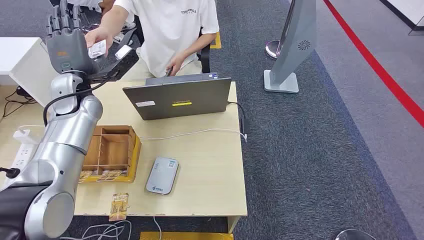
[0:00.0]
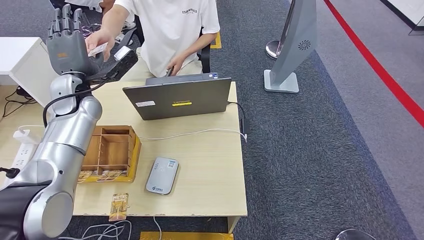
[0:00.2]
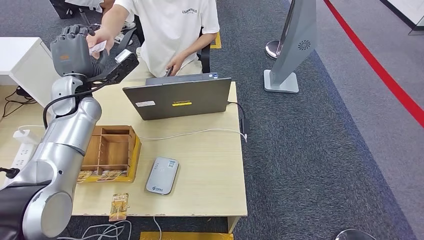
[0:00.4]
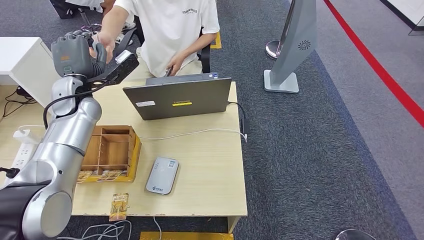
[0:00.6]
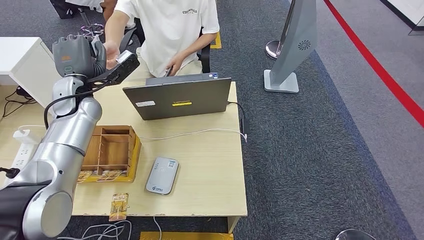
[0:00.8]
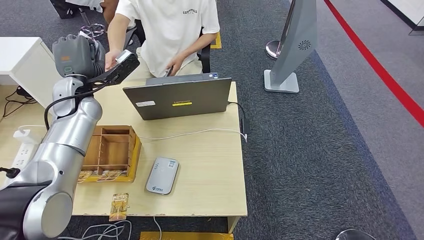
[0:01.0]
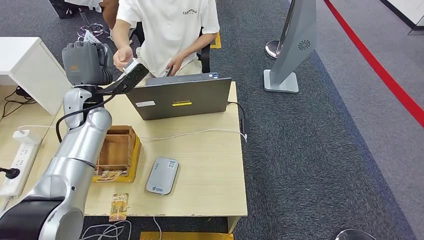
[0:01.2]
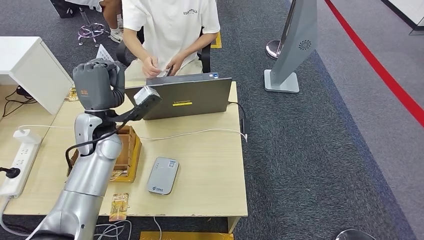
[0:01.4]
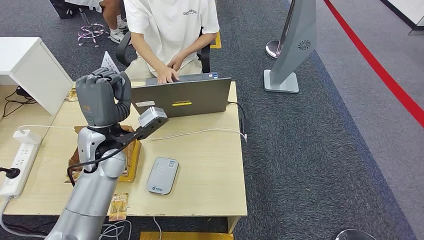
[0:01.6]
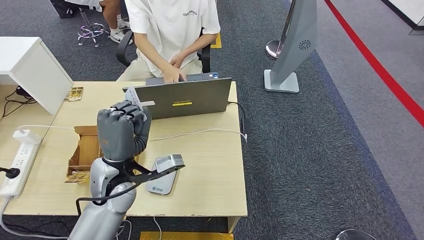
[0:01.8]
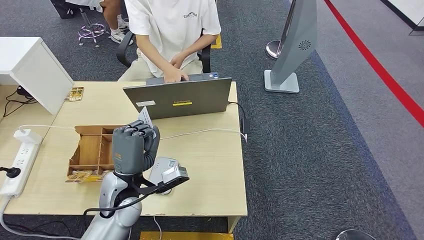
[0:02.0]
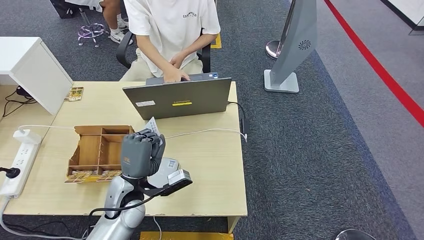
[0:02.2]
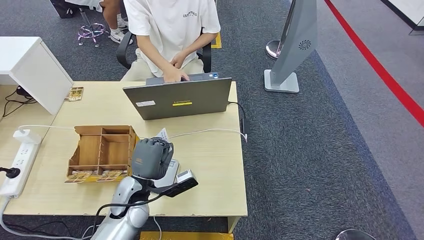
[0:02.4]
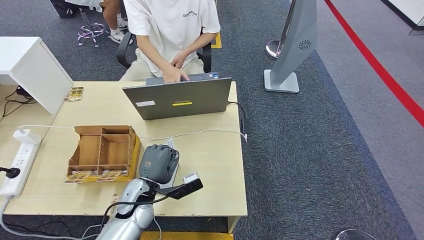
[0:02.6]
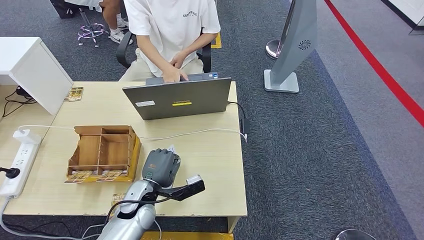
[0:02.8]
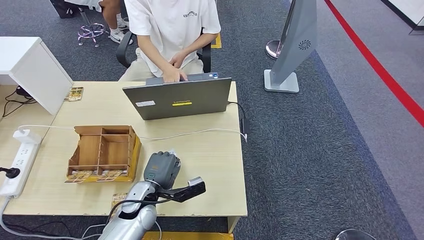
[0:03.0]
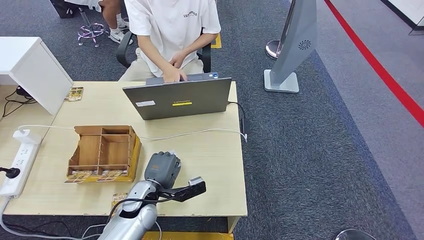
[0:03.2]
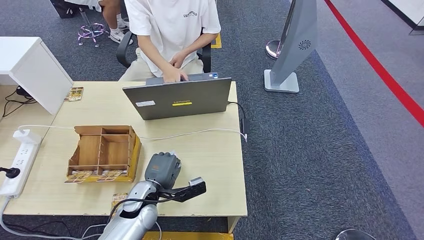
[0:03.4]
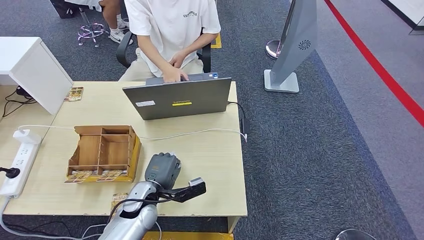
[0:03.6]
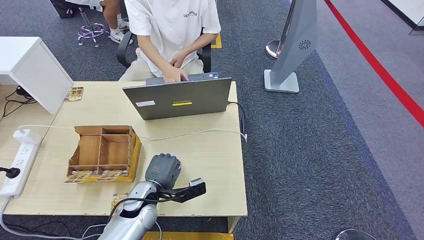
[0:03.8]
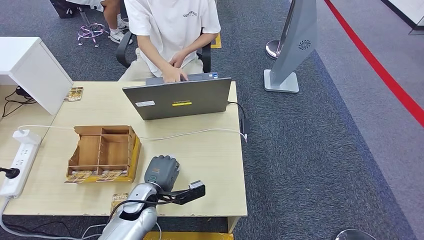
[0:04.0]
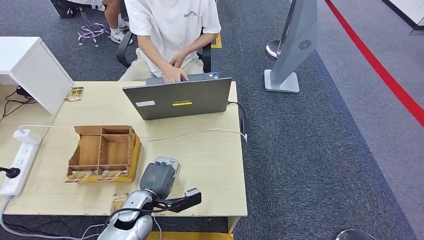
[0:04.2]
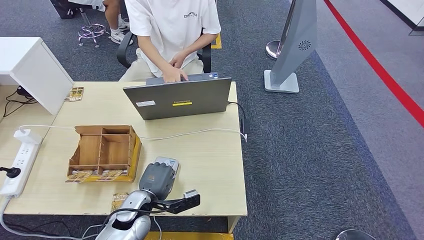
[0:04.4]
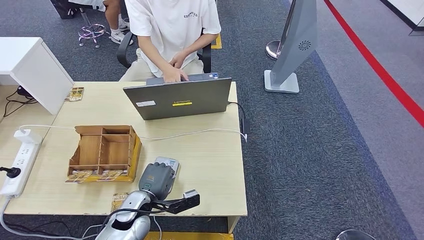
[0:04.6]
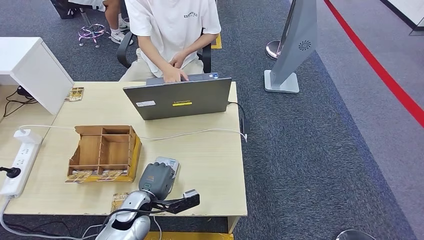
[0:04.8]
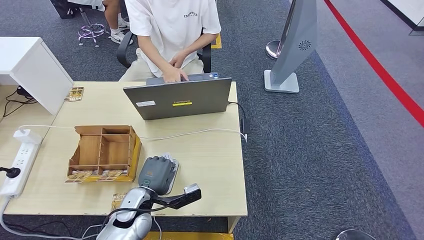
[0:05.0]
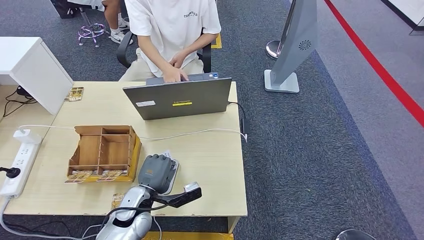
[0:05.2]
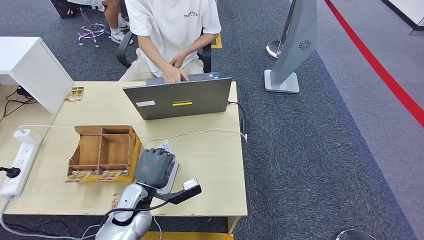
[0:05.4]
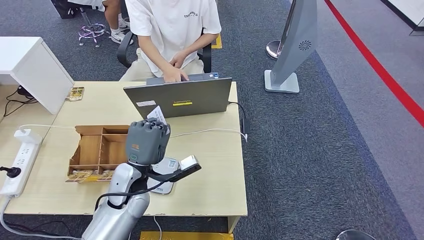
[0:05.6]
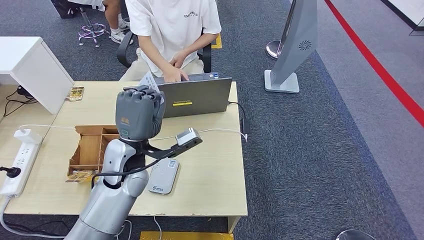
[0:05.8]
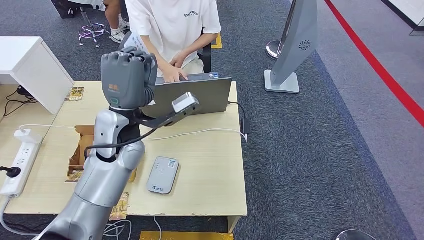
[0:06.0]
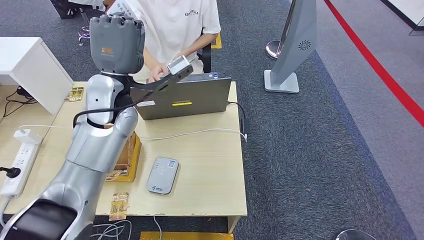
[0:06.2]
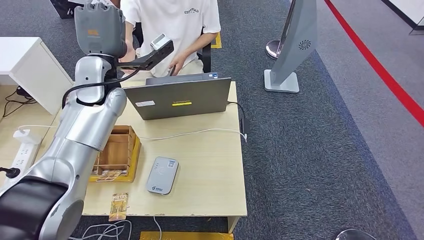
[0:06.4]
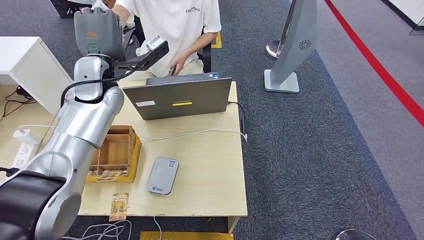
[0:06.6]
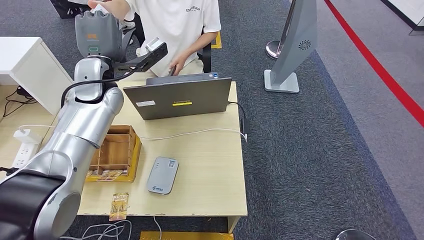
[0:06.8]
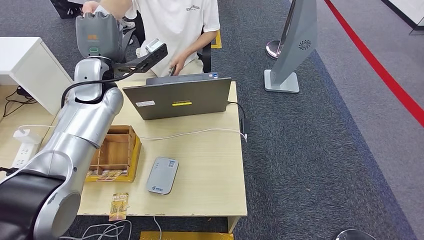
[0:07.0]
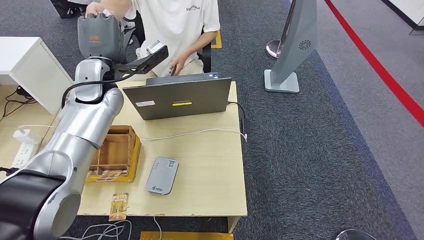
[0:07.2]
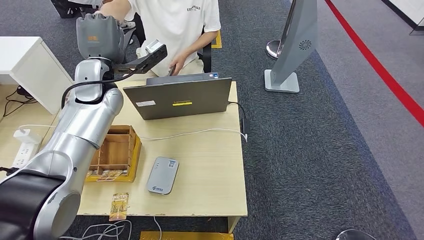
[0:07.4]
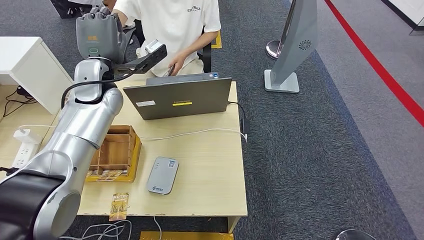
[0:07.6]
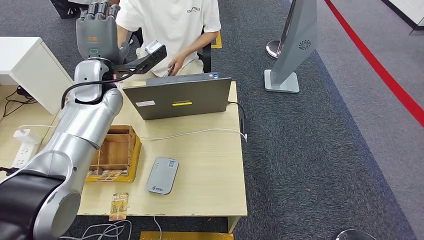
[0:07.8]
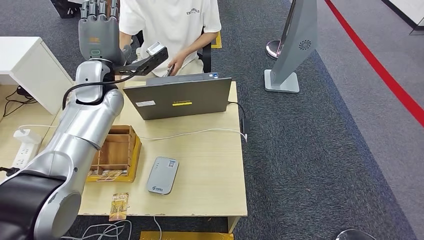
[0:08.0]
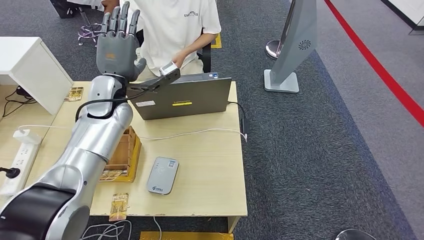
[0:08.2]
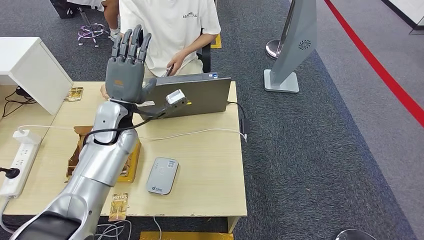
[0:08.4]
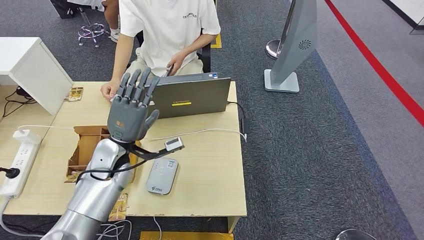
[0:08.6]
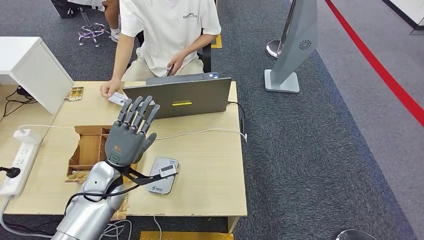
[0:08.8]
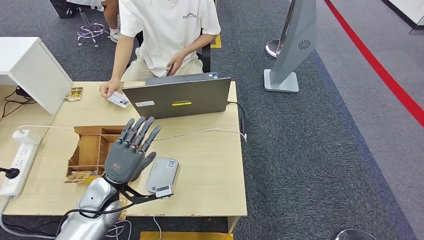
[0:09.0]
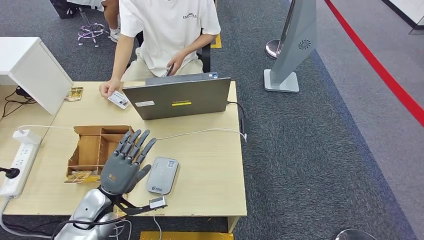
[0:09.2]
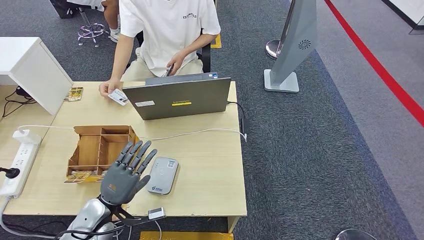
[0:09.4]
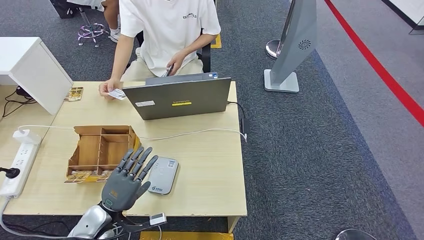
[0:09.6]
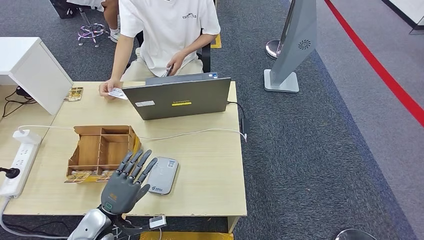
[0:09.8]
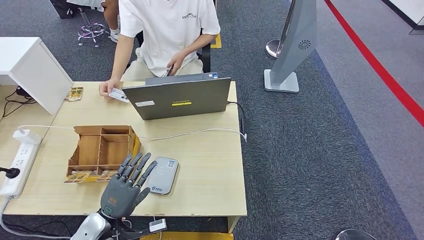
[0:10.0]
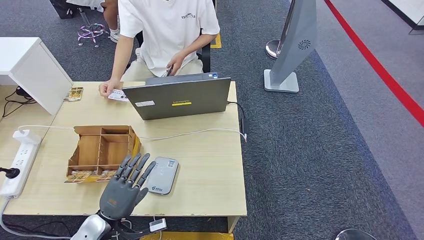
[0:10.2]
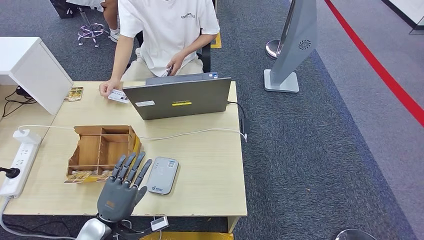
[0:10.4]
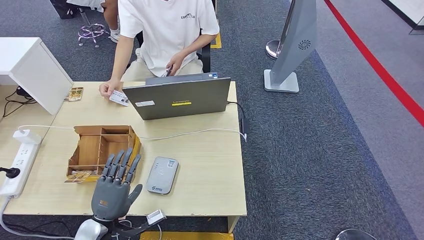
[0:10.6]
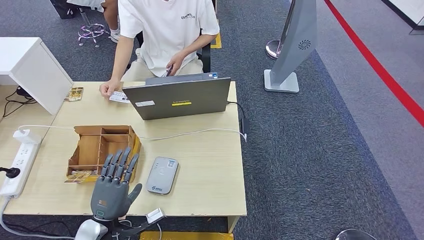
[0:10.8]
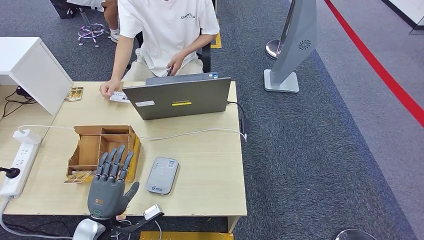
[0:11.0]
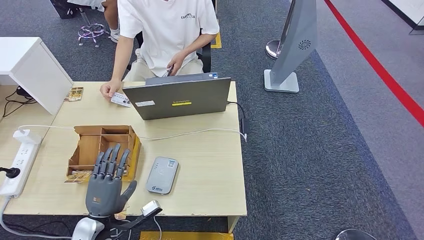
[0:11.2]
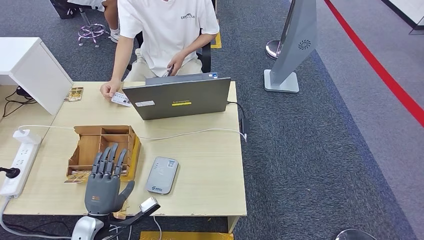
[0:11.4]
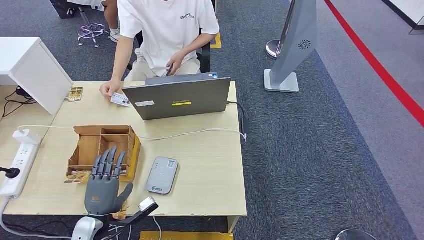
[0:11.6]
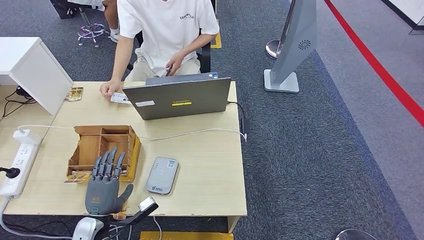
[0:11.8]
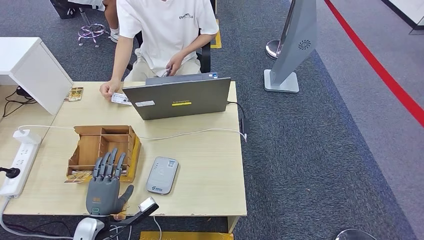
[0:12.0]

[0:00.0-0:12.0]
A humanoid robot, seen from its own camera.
Step, 0:00.0 to 0:02.2: Take the ID card from the person's hand.
Step, 0:02.4 to 0:07.2: Place the ID card on the card reader.
Step, 0:07.4 to 0:11.2: Hand the ID card to the person.
0:01.6 to 0:03.0: The left hand shifts about 20 cm downward and backward.
0:03.0 to 0:04.4: There are only small adjustments of the hands.
0:04.4 to 0:06.0: The left hand shifts approximately 25 cm upward and forward.
0:06.0 to 0:07.6: The left hand shifts about 15 cm forward and to the left.
0:07.6 to 0:09.0: The left hand shifts about 30 cm downward and backward.
0:09.0 to 0:10.4: The left hand travels backward and downward by approximately 10 cm.

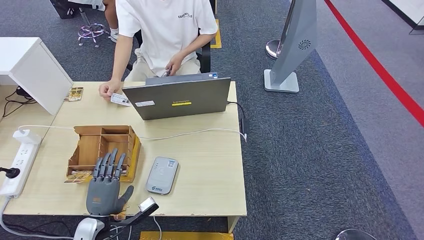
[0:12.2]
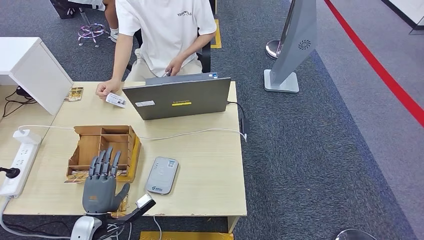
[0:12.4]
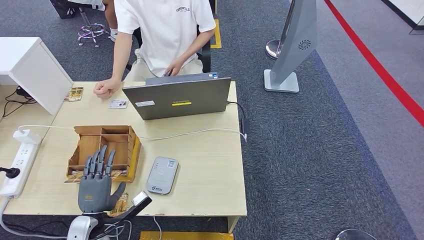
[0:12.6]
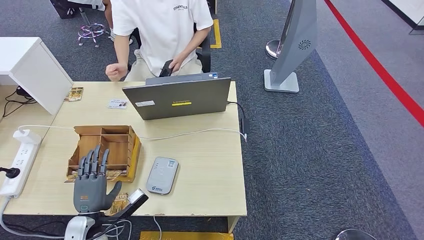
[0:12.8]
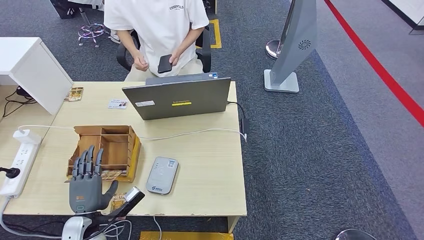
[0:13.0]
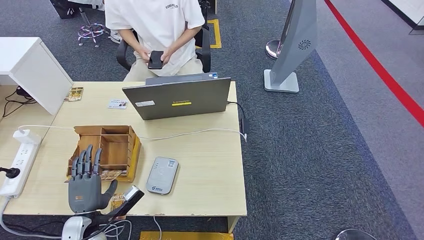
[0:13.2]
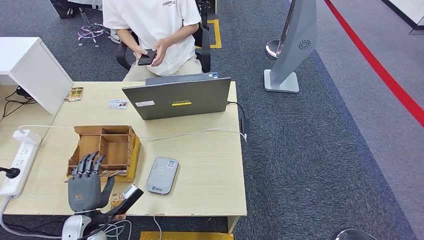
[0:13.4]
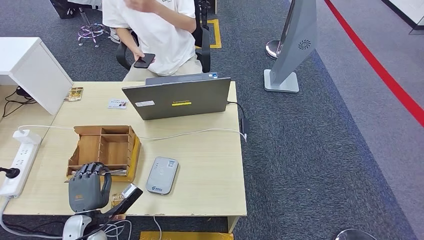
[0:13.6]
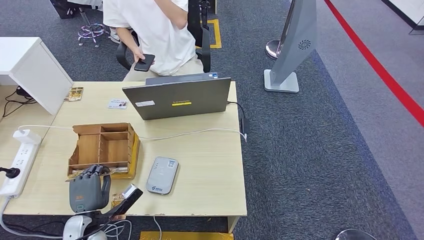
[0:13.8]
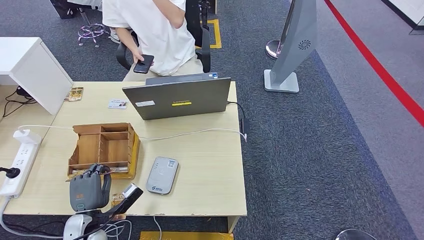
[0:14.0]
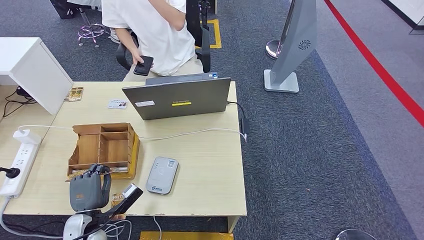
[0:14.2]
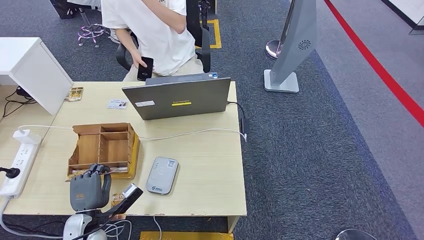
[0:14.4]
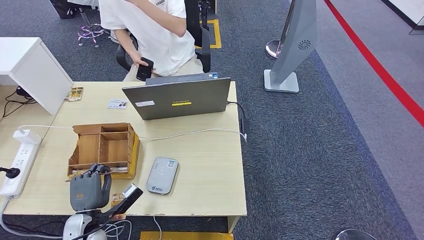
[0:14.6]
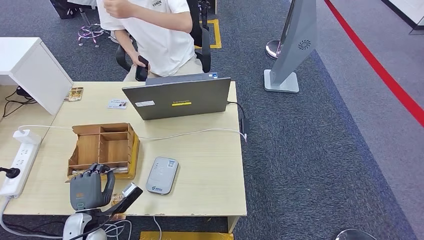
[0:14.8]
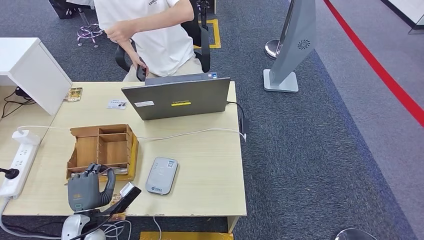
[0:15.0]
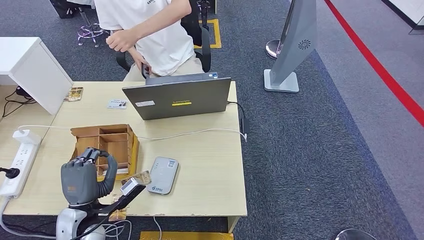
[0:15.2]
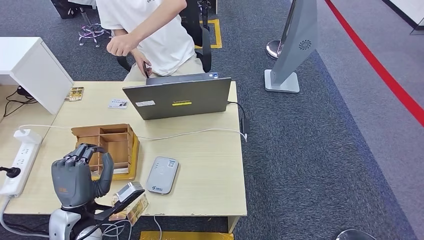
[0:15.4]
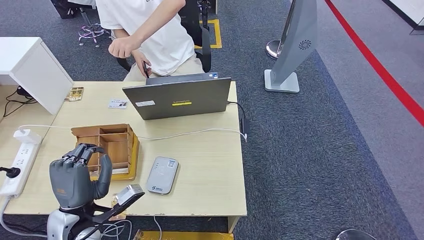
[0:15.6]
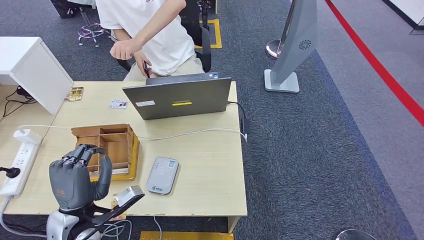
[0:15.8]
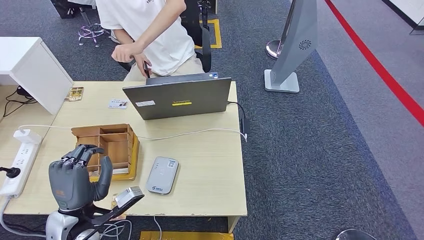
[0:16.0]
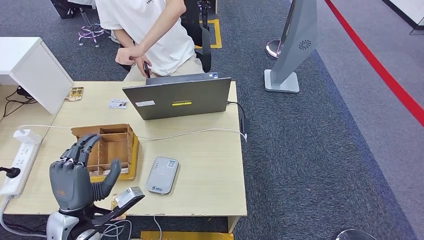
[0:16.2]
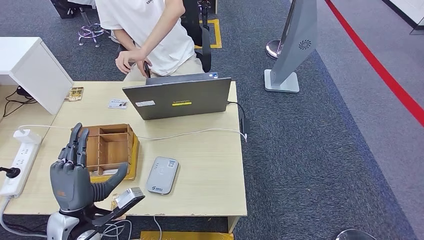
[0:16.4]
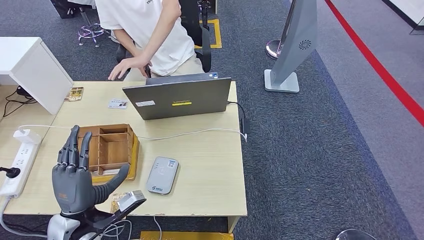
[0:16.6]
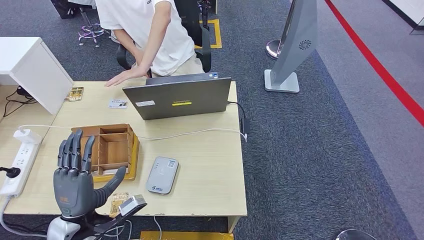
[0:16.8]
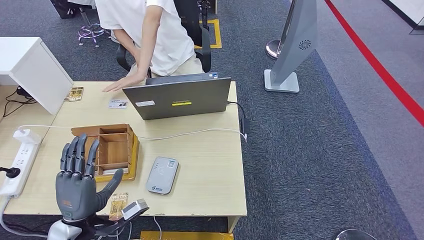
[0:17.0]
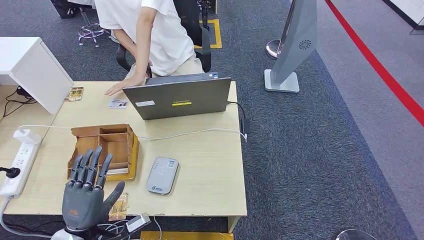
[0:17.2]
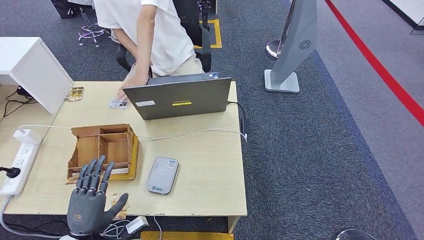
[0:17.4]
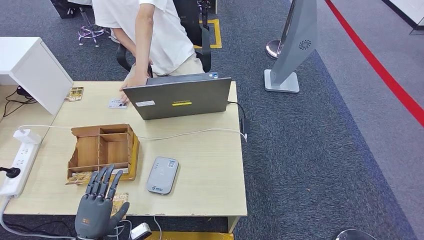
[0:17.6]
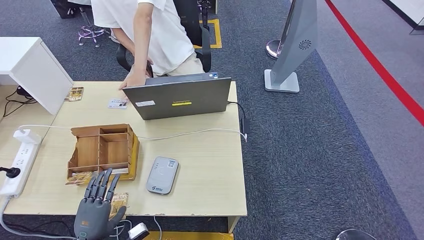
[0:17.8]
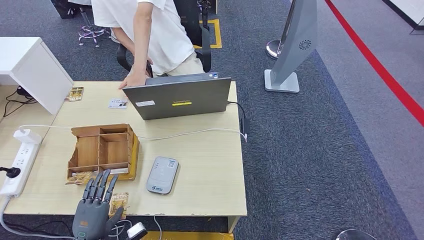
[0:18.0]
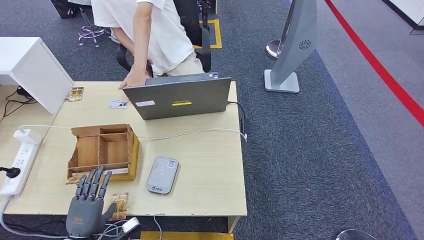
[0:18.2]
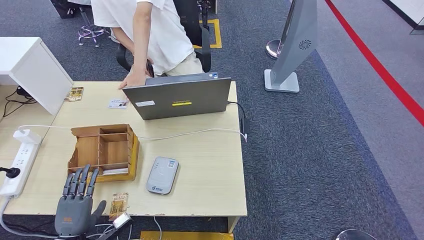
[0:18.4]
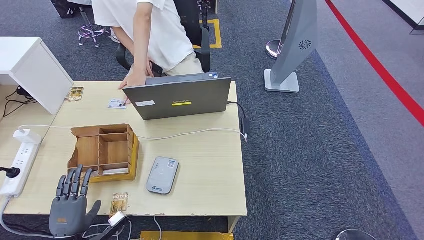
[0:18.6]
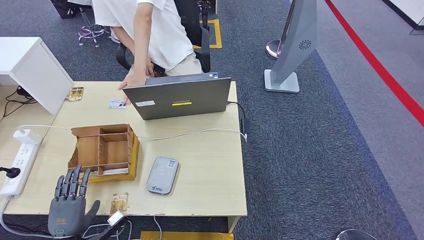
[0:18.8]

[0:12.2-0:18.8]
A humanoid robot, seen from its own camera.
Step, 0:12.2 to 0:14.8: Pick up the room key from the key card box.
0:12.2 to 0:13.8: The hands make only small movements.
0:13.8 to 0:15.4: The left hand travels upward by roughly 10 cm.
0:15.4 to 0:17.2: The left hand moves about 5 cm.
0:17.2 to 0:18.8: The left hand goes roughly 10 cm downward and to the left.
